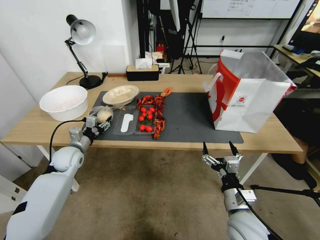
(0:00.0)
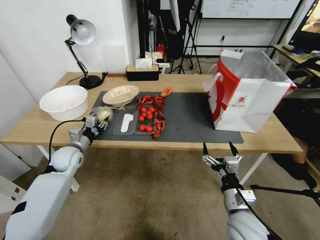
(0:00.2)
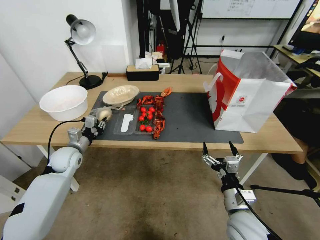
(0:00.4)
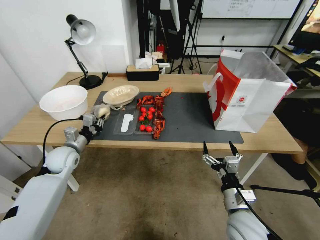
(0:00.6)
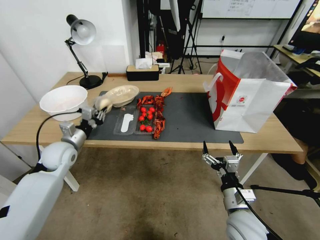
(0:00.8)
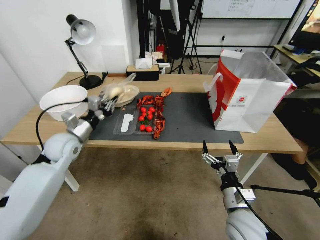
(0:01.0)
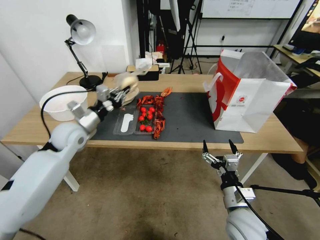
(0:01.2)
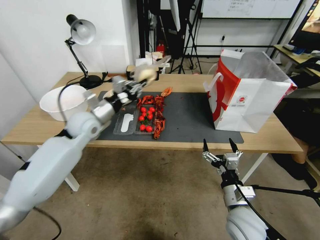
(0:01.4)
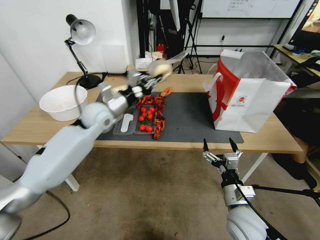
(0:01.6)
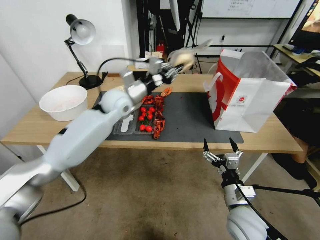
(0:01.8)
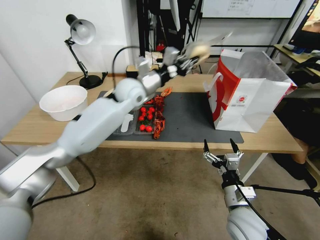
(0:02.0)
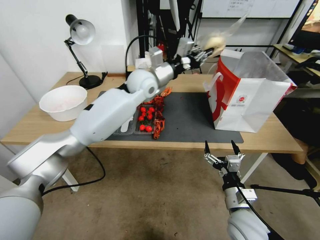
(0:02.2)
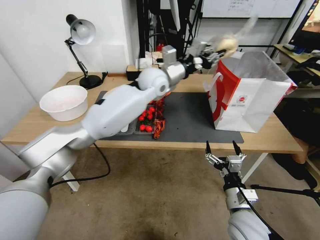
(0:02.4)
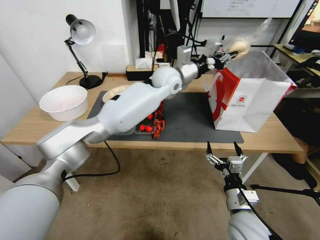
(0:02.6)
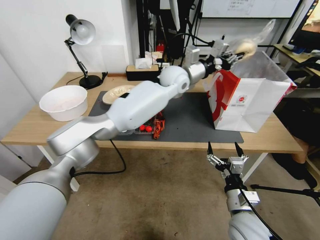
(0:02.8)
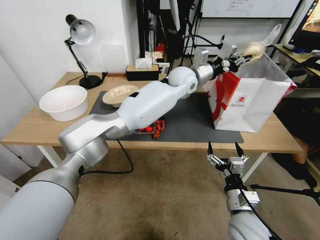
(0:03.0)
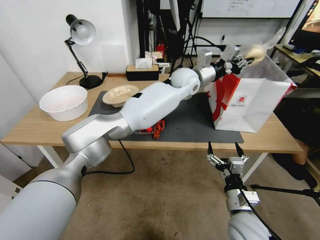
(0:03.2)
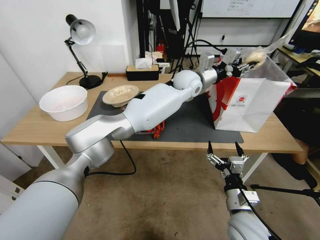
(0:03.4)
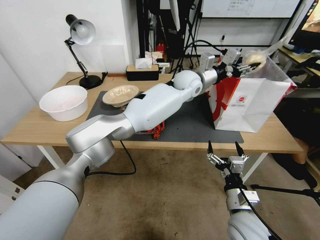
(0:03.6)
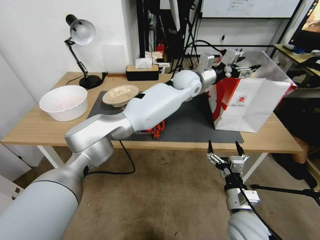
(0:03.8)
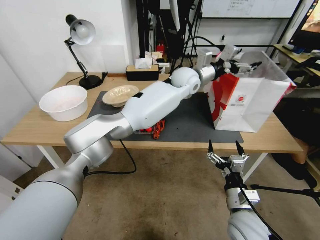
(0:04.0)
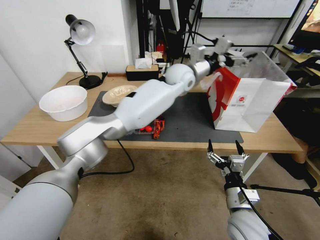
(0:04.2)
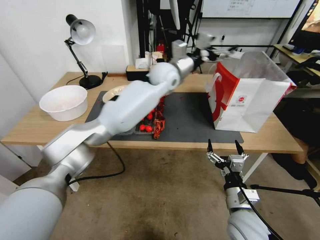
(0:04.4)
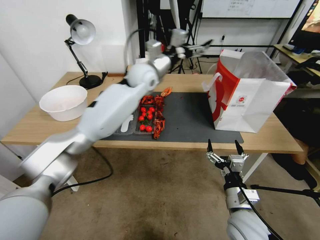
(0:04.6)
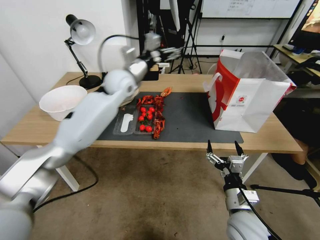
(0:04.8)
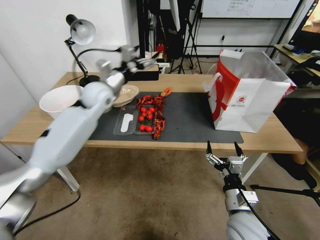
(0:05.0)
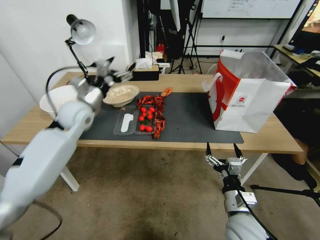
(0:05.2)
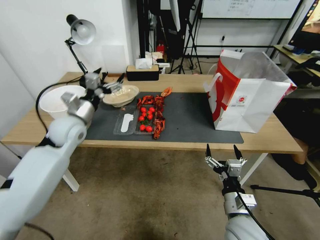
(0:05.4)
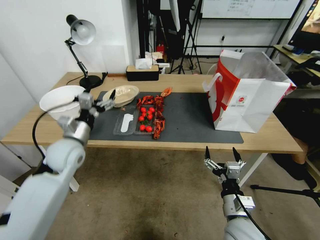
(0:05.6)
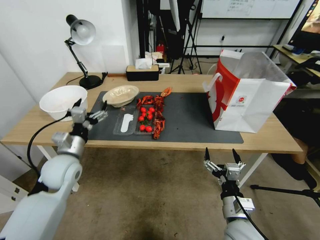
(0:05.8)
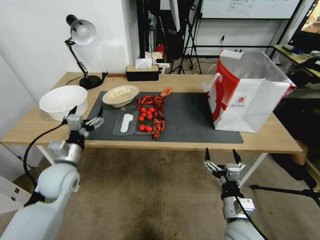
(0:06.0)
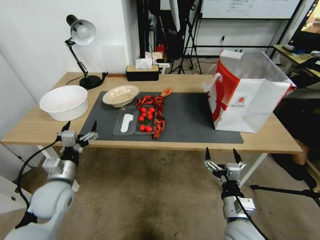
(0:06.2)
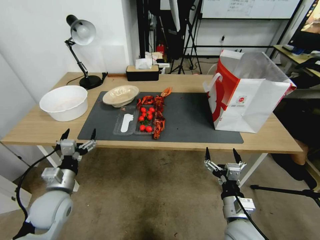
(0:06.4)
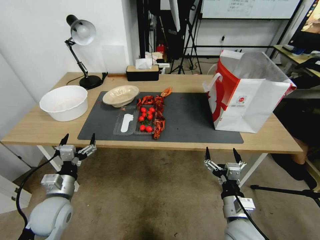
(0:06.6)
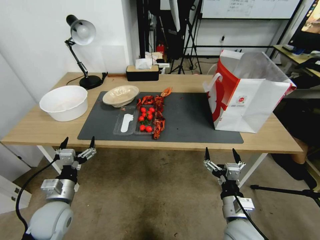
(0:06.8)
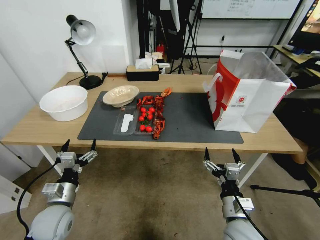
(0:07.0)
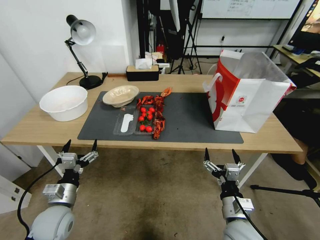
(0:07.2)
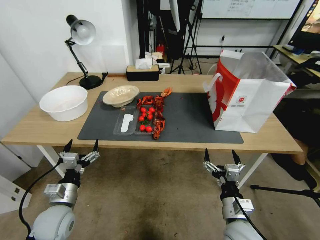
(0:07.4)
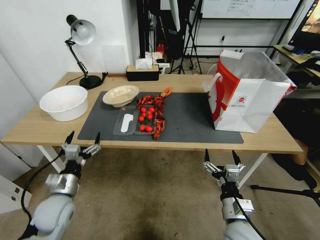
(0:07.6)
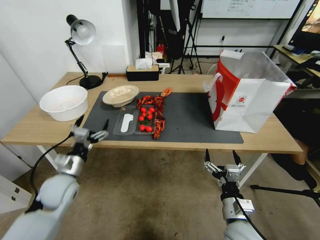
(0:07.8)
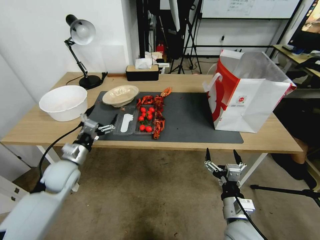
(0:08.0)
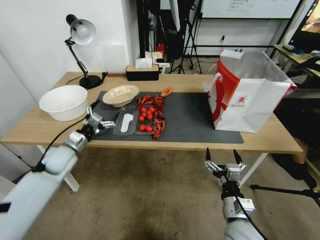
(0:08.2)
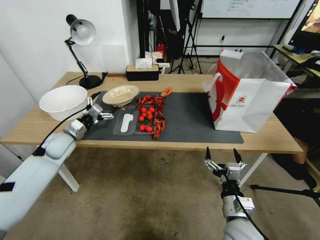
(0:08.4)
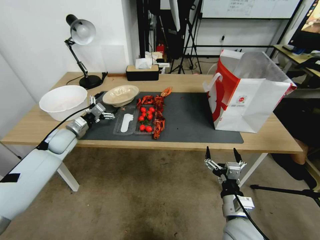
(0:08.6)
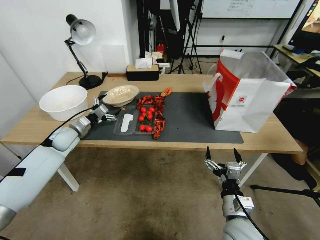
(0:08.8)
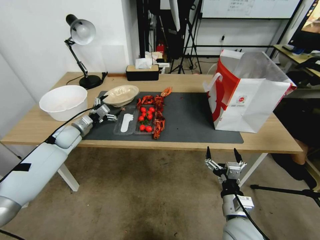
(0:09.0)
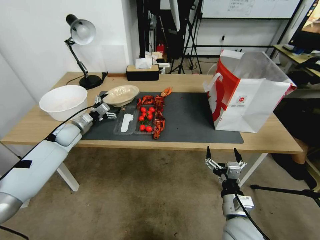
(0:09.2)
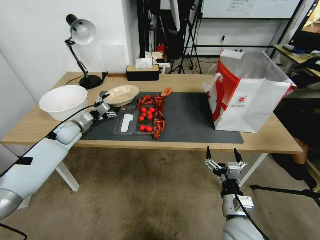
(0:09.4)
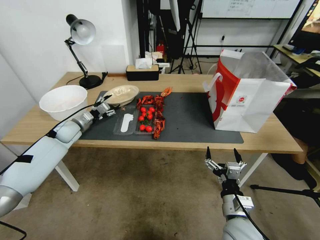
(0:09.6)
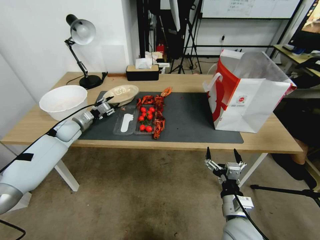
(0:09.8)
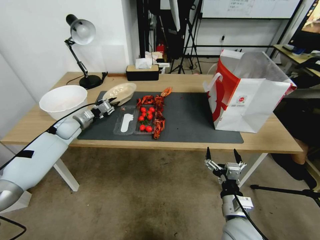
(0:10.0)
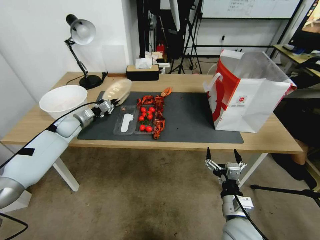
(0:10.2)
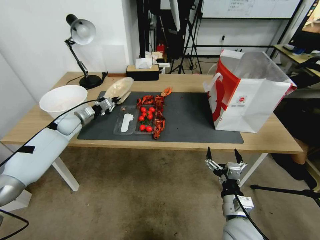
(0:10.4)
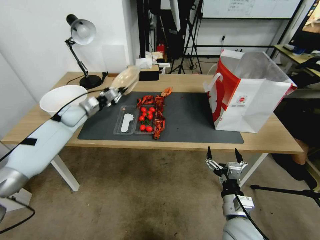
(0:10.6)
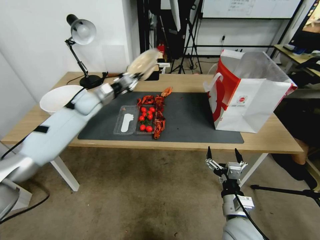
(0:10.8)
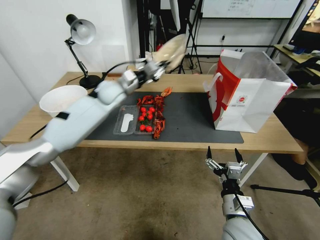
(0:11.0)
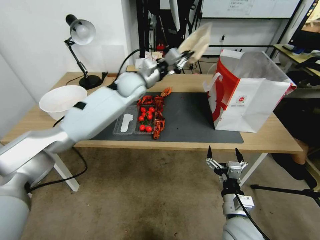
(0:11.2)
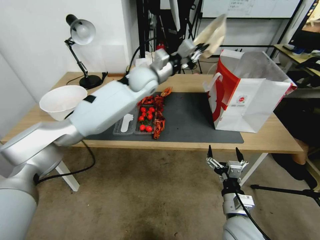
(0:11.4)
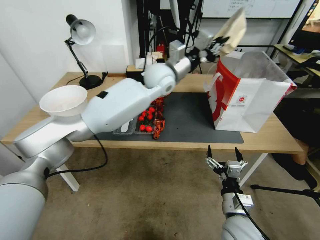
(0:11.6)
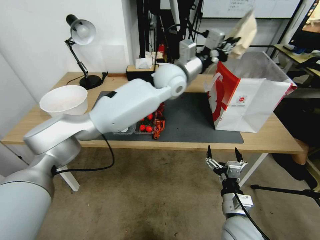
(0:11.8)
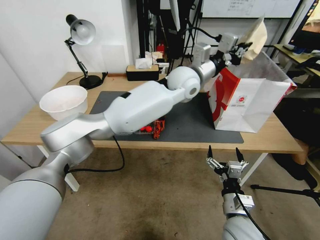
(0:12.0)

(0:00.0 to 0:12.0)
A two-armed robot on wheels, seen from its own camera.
0:00.0 - 0:01.6: The left gripper shifts some 20 cm upward and to the right, and closes its fingers.
0:01.6 - 0:03.0: The left gripper travels to the right by some 30 cm.
0:03.0 - 0:04.4: The left gripper is displaced to the left by about 10 cm, and opens.
0:04.4 - 0:06.0: The left gripper travels to the left, backward and downward by roughly 40 cm.
0:06.0 - 0:07.6: The left gripper heads downward and backward, covering roughly 10 cm.
0:07.6 - 0:09.0: The left gripper shifts some 25 cm forward.
0:09.0 - 0:10.4: The left gripper moves approximately 5 cm, and closes.
0:10.4 - 0:12.0: The left gripper goes about 50 cm to the right and upward.

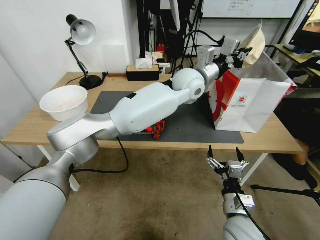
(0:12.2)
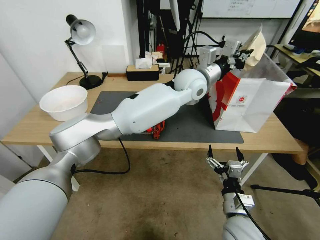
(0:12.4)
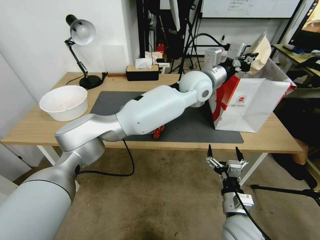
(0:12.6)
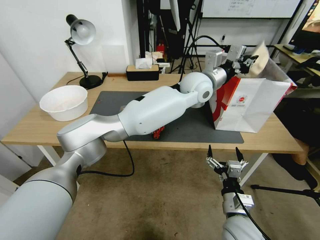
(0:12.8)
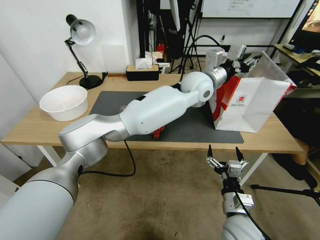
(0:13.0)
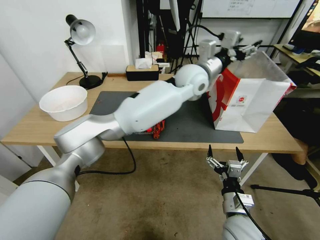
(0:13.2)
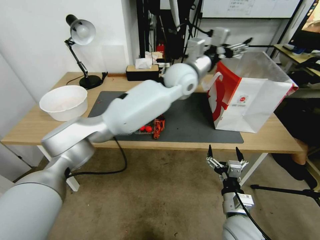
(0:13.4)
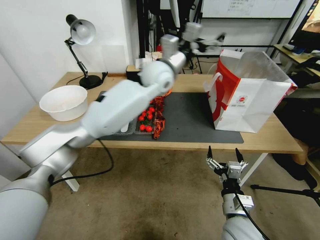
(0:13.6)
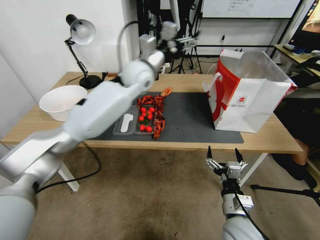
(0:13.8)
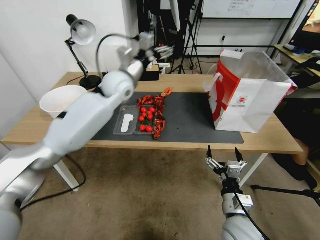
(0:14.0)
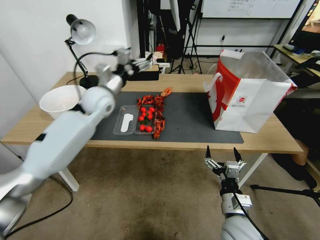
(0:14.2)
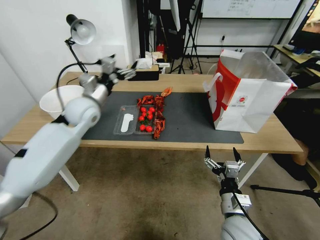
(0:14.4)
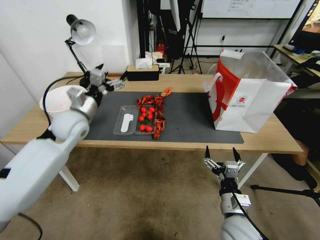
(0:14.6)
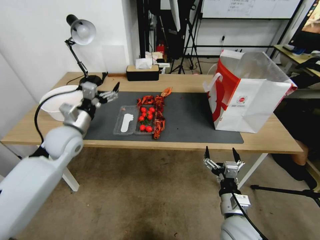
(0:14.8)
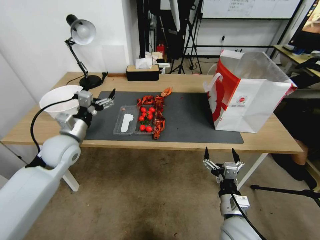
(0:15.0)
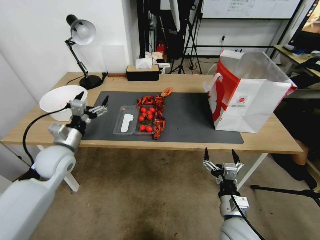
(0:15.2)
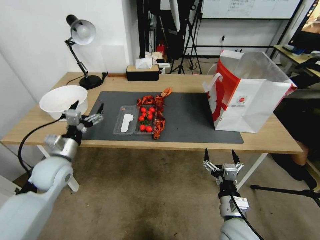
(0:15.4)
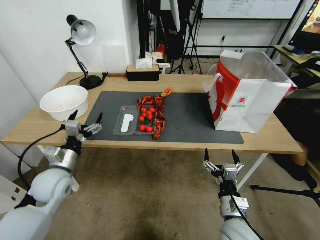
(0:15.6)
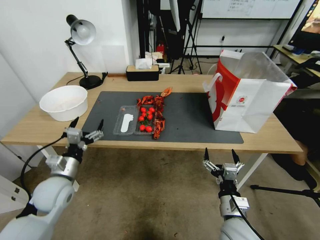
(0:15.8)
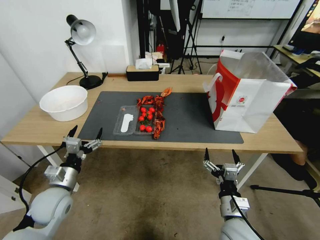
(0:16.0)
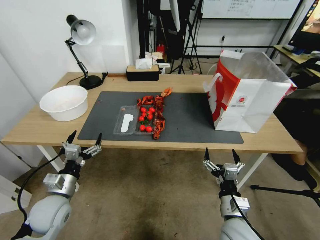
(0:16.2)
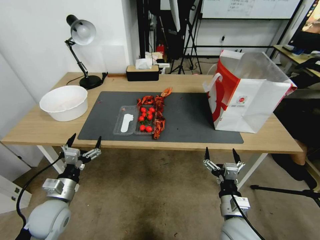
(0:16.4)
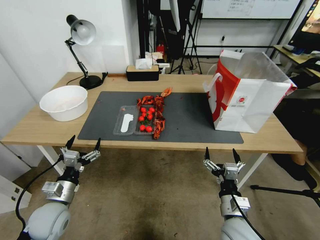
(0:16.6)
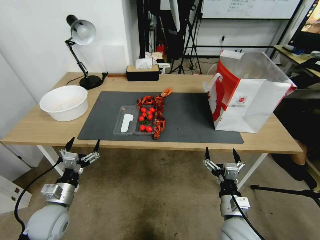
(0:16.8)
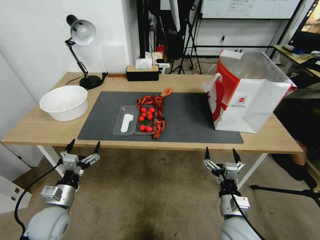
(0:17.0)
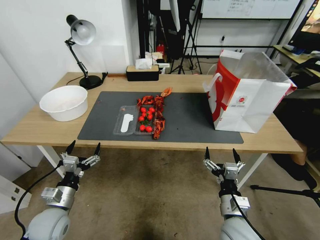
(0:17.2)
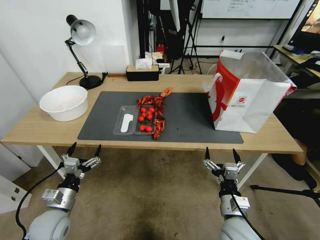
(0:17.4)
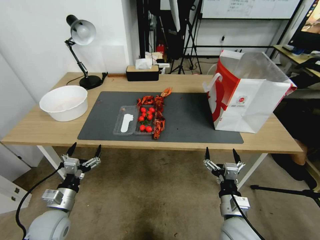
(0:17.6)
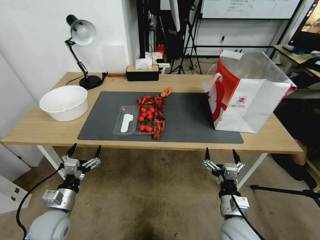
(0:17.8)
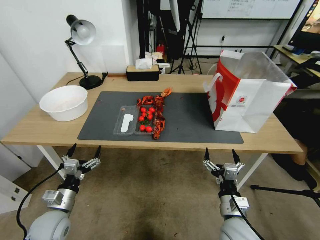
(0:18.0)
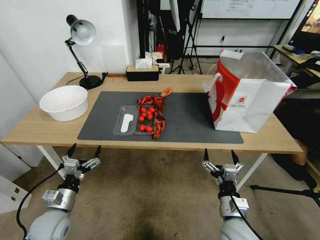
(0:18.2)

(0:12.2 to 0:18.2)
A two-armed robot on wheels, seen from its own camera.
0:12.2 - 0:13.8: The left gripper goes some 15 cm to the left, and opens.
0:13.8 - 0:15.2: The left gripper heads to the left, backward and downward, covering roughly 35 cm.
0:15.2 - 0:16.6: The left gripper is displaced backward and downward by some 15 cm.
0:16.6 - 0:18.2: The grippers stay close to where they were, moving slightly.

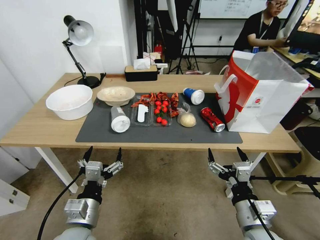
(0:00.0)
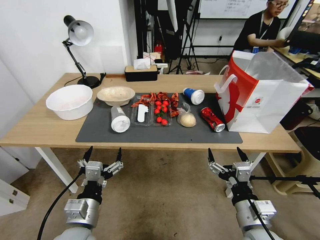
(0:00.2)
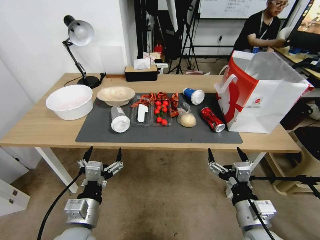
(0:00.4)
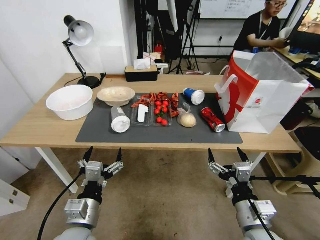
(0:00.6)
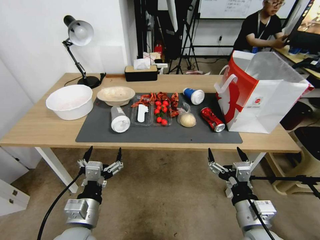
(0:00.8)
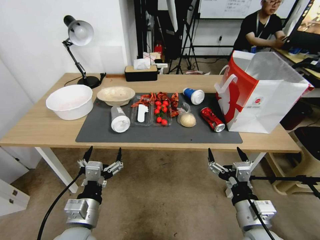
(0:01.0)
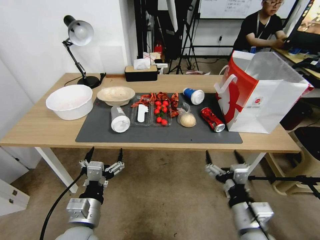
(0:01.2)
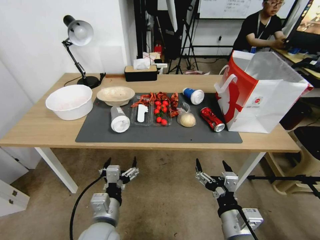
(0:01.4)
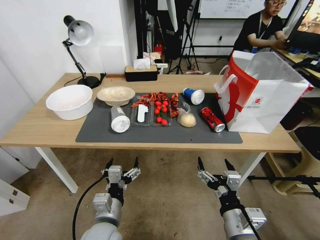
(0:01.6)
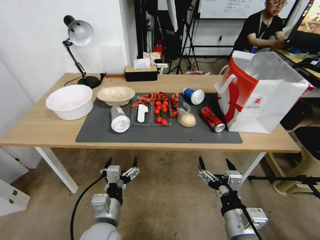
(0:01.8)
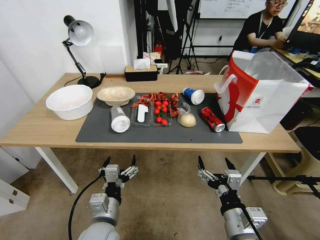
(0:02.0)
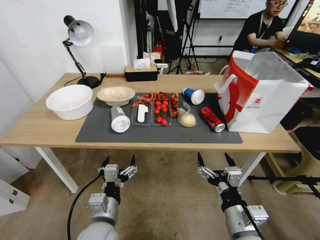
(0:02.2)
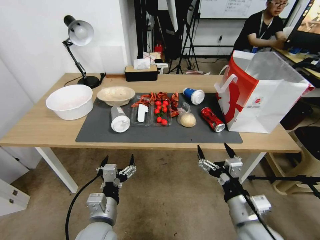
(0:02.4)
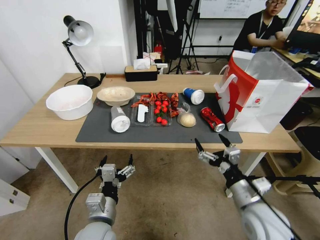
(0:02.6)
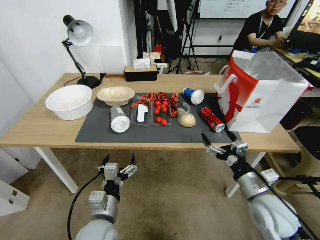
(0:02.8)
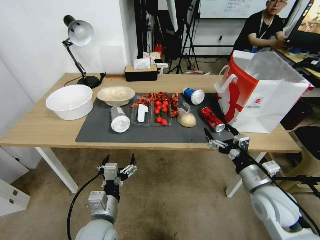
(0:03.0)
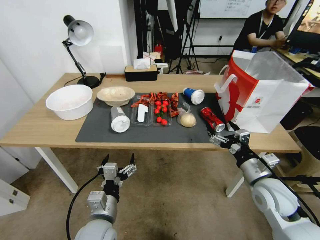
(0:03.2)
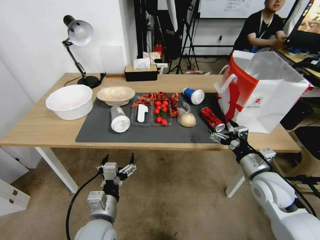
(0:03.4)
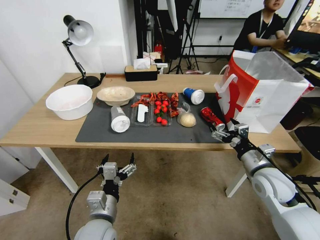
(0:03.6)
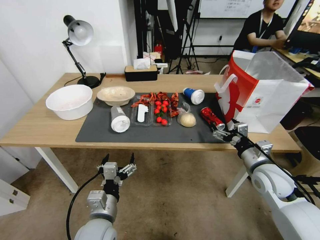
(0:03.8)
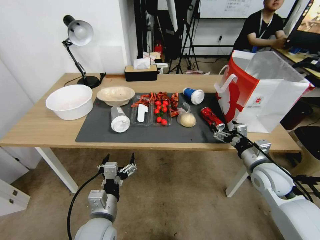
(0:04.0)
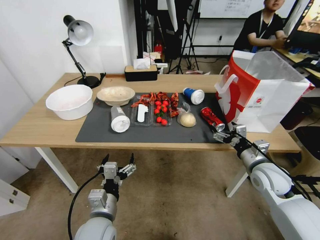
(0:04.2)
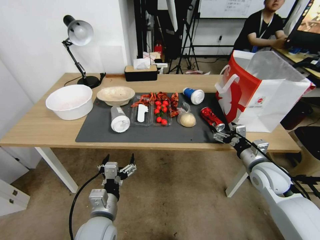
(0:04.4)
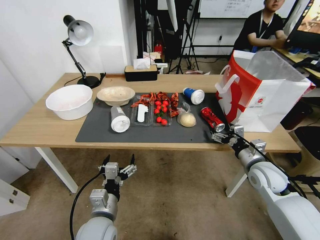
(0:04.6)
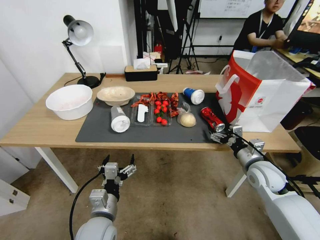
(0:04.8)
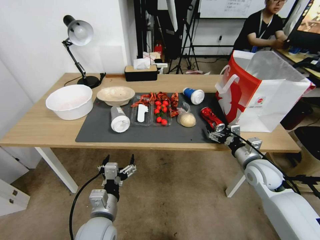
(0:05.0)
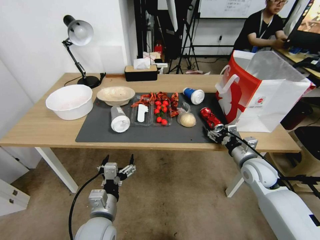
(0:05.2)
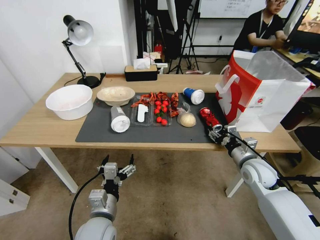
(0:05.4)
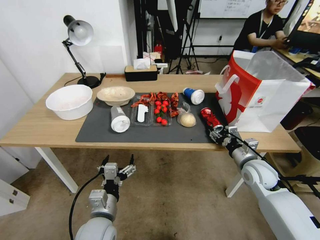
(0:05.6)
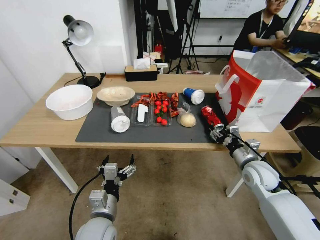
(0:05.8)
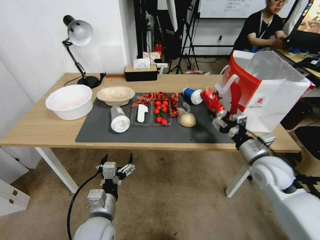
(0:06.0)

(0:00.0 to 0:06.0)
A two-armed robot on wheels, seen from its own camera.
0:01.6 - 0:03.0: The right gripper goes some 10 cm forward and to the right.
0:03.0 - 0:04.4: The right gripper is displaced forward and to the right by roughly 15 cm.
0:04.4 - 0:06.0: The right gripper closes.
